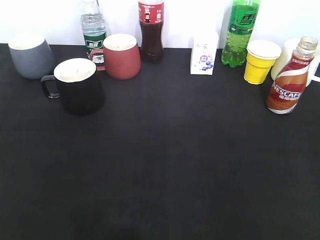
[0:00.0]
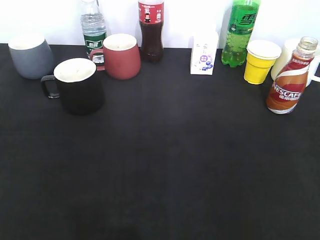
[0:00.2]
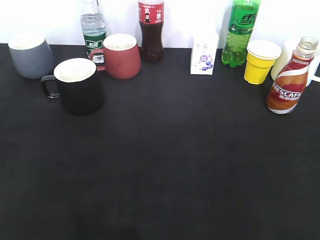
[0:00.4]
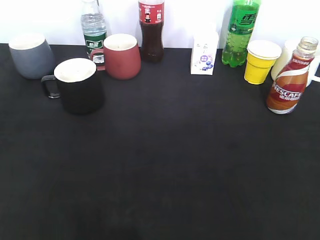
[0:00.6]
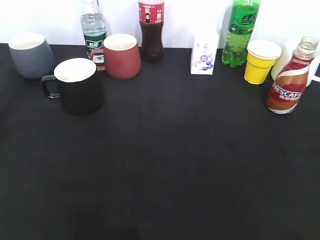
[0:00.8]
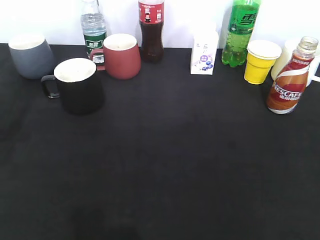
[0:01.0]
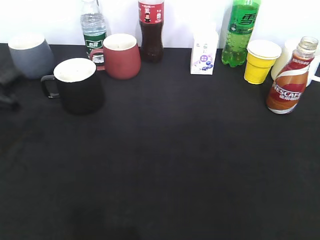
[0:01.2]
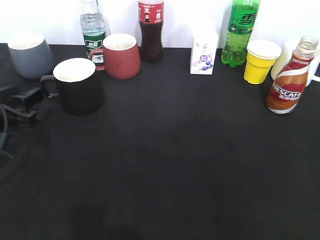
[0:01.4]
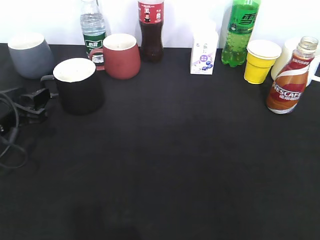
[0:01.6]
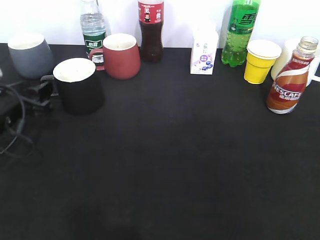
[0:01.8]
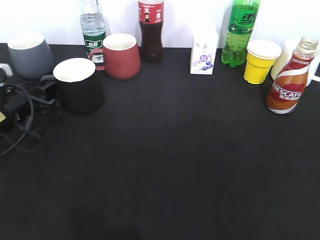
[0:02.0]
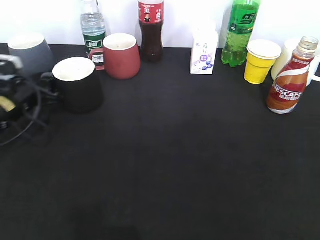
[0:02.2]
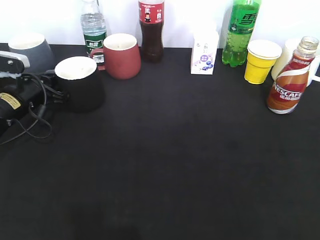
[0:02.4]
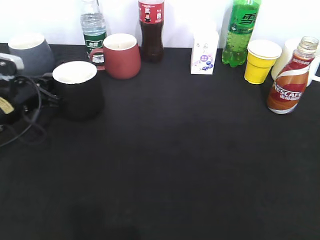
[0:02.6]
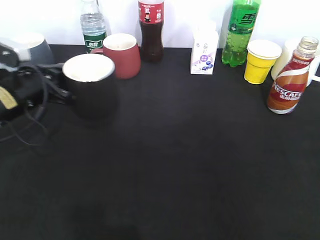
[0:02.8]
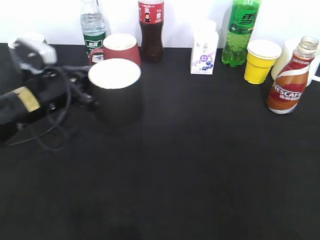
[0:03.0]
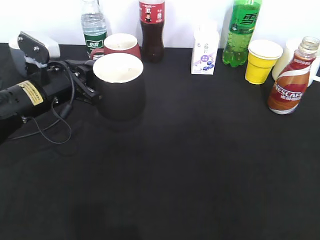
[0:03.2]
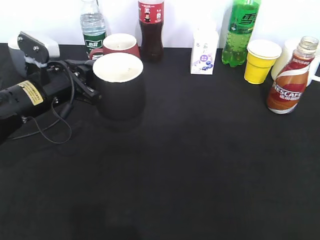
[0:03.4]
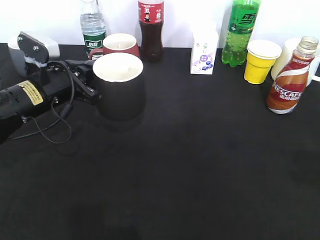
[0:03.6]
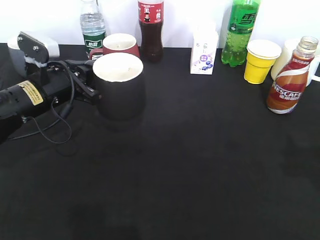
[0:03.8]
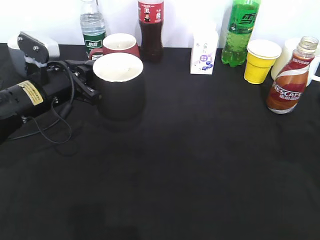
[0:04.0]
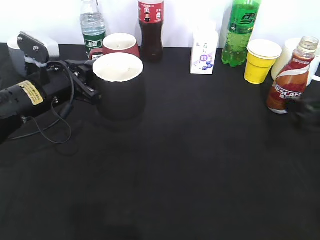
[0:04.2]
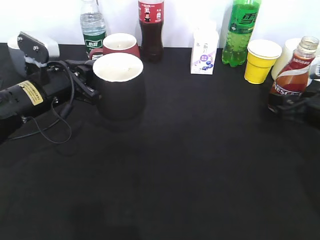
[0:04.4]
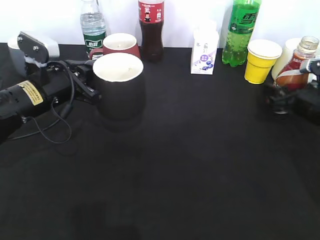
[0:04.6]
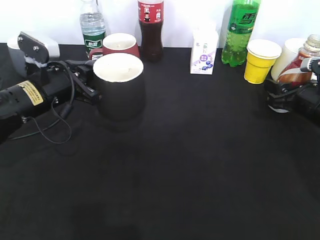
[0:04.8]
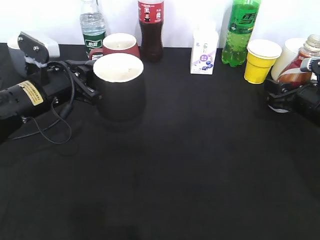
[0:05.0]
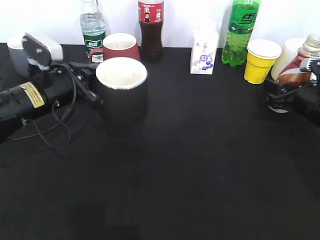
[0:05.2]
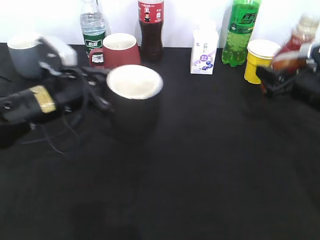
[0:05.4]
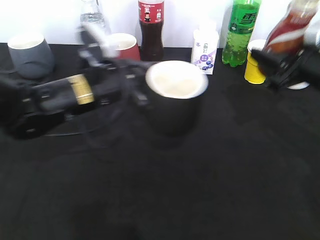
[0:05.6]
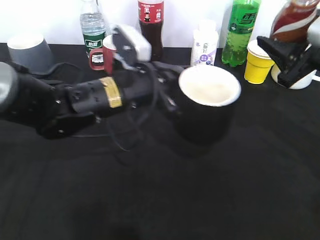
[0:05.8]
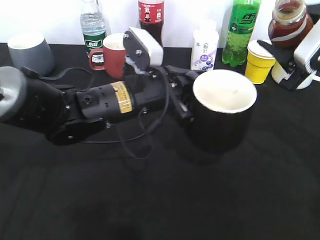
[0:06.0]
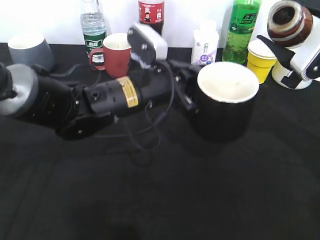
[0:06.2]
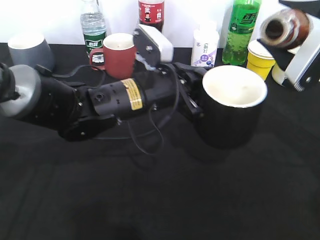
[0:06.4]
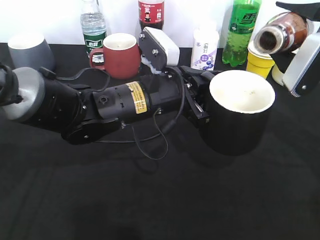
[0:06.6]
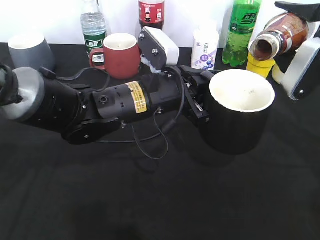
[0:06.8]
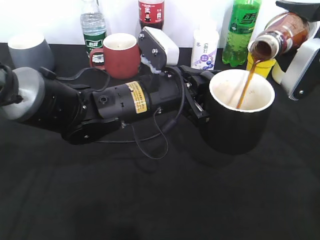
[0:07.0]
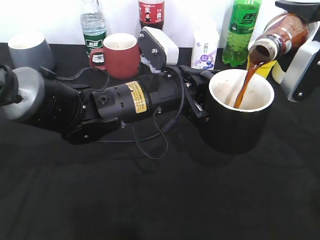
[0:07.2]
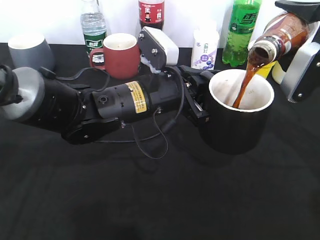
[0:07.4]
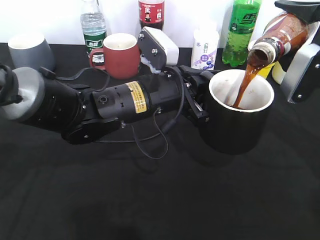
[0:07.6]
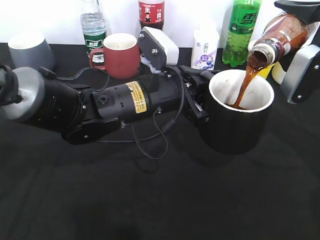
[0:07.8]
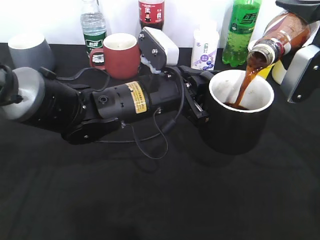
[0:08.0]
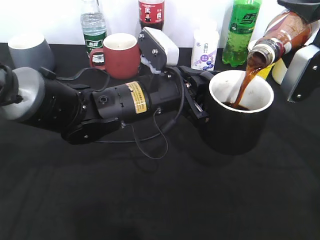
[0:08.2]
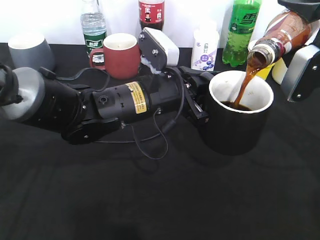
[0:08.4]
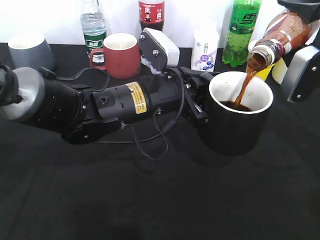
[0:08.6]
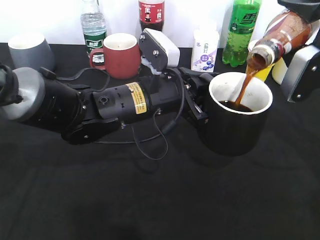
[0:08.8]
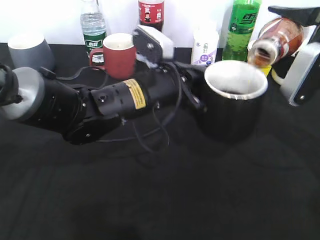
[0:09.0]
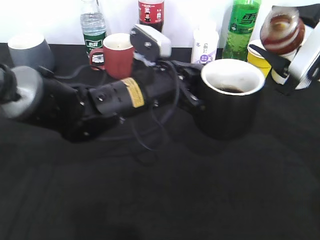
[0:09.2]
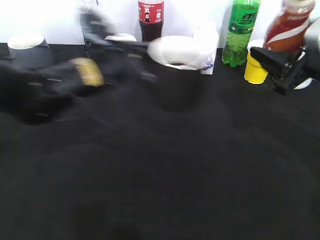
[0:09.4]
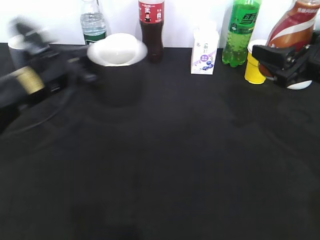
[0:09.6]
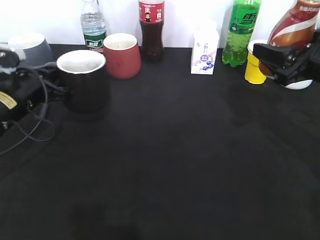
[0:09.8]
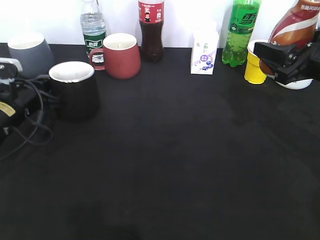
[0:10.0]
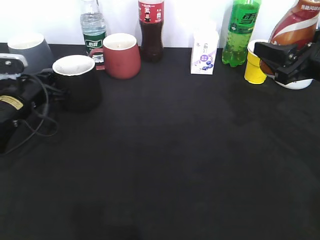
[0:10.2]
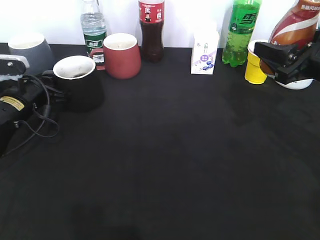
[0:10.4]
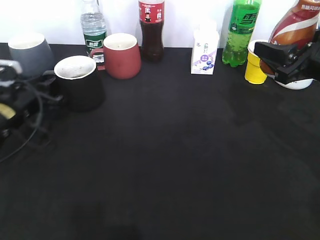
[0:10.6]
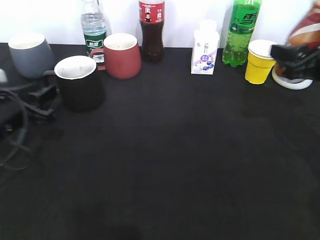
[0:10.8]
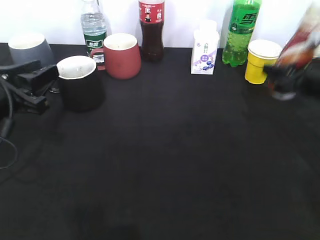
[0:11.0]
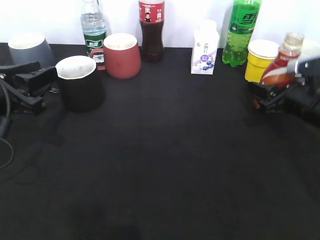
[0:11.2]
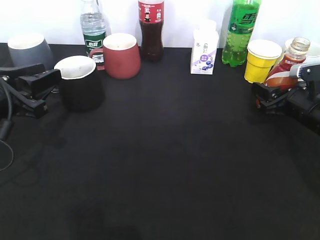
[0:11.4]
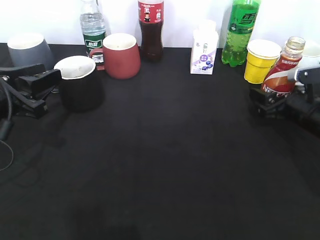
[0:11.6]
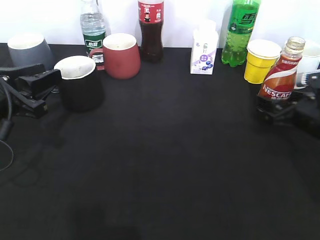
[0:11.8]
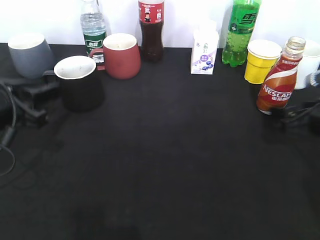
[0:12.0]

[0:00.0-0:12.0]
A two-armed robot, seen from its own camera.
Step, 0:00.0 to 0:02.4: Grasp the black cup with left gripper.
Step, 0:02.6 to 0:02.8: Lift the black cup with left gripper.
Step, 0:03.2 to 0:05.0: Grasp the bottle with coffee with right gripper.
Step, 0:05.2 to 0:09.4: Pour the coffee from bottle to cup with right gripper.
Step, 0:09.6 to 0:10.6: Place the black cup on the table with left gripper.
Step, 0:10.8 to 0:11.8: Place the coffee bottle on the table with right gripper.
0:00.0 to 0:01.6: The left gripper goes approximately 30 cm forward and downward.
0:01.6 to 0:03.0: The left gripper moves to the right, roughly 10 cm, and closes up.
0:03.0 to 0:04.4: The right gripper heads forward and downward, covering approximately 35 cm, and opens up.
0:04.4 to 0:06.0: The right gripper travels upward by some 10 cm, and closes up, while the left gripper moves to the right, roughly 15 cm.
0:07.6 to 0:09.0: The grippers move only a little.
0:09.0 to 0:10.4: The left gripper travels to the left by about 25 cm, and opens.
0:10.4 to 0:12.0: The left gripper travels backward and upward by some 15 cm. Meanwhile the right gripper heads downward, covering some 10 cm, and opens.

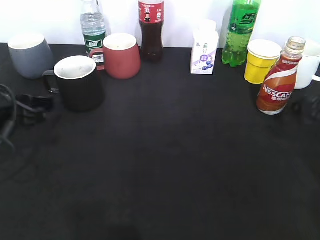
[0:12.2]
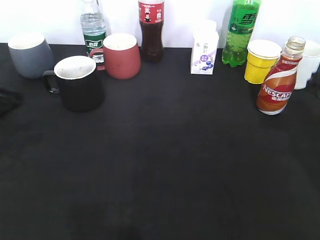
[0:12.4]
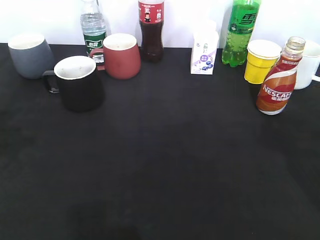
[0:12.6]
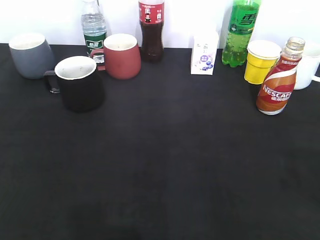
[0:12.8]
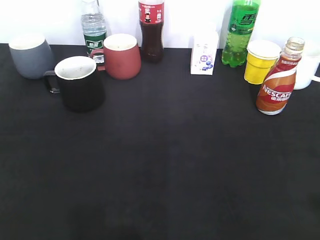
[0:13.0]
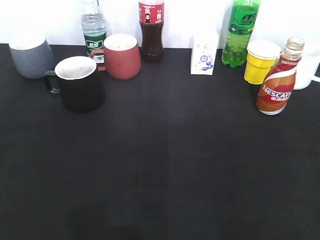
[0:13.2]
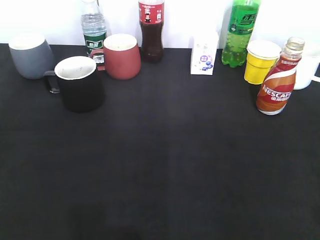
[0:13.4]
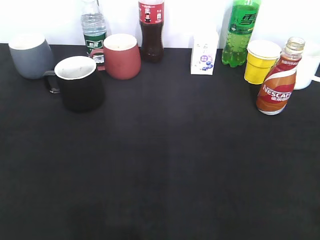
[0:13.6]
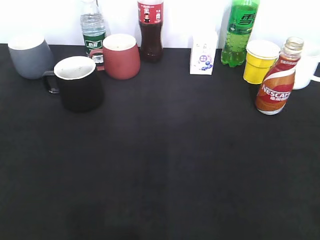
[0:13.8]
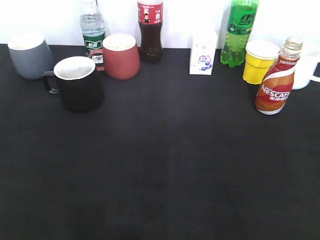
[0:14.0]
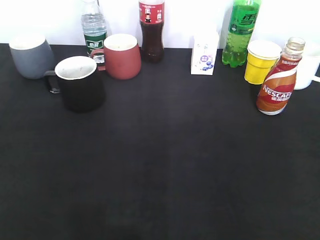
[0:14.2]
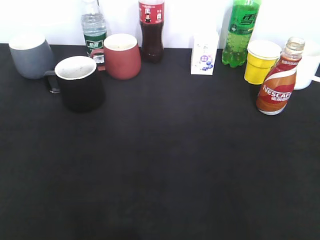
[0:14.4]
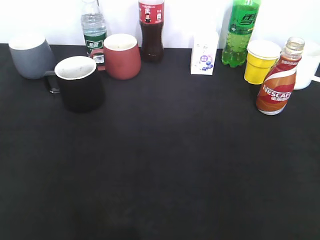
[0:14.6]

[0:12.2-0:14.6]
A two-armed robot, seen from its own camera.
0:12.2 to 0:13.4: Both grippers travel together backward and upward, roughly 25 cm.
